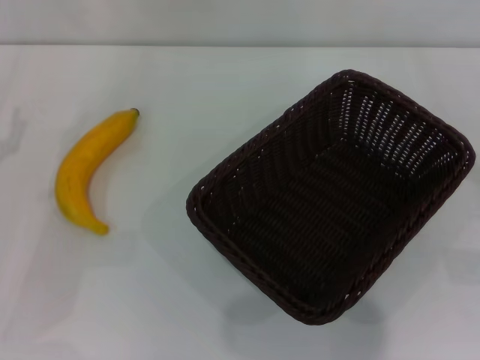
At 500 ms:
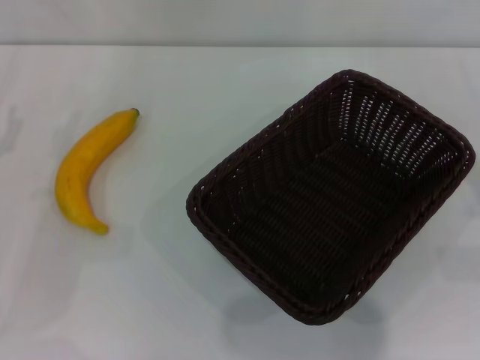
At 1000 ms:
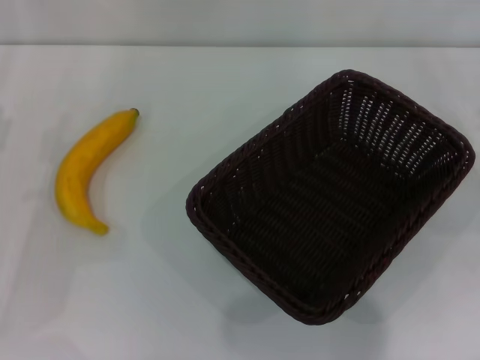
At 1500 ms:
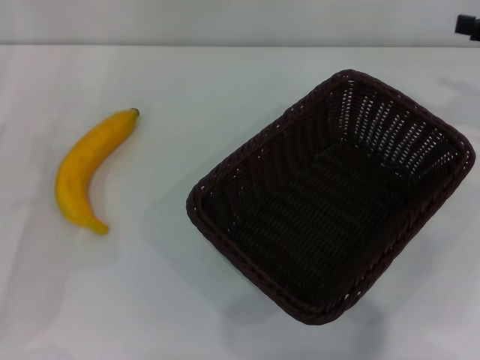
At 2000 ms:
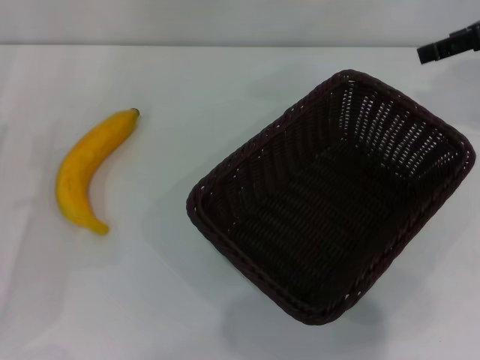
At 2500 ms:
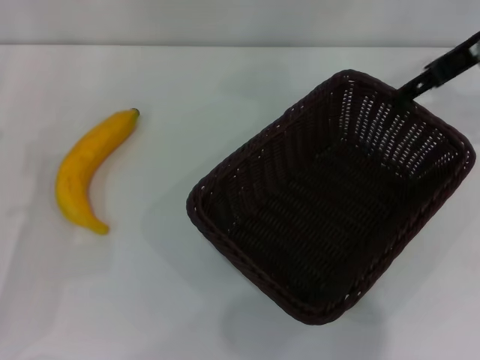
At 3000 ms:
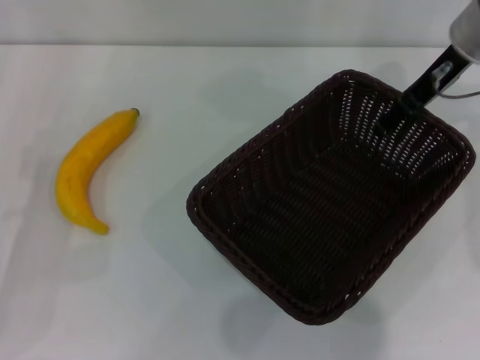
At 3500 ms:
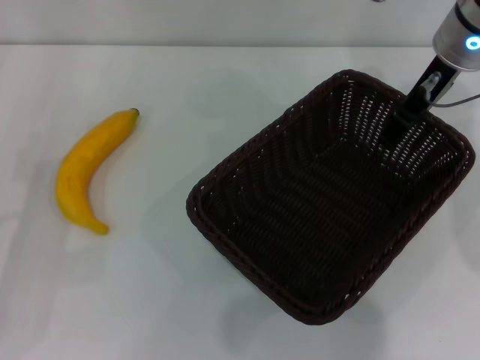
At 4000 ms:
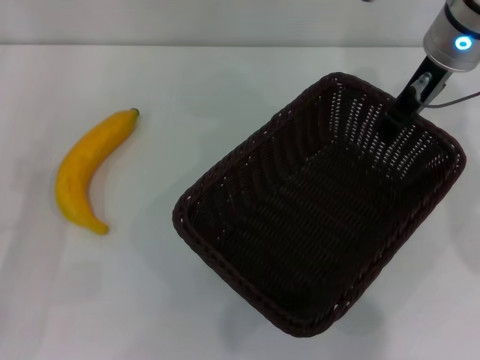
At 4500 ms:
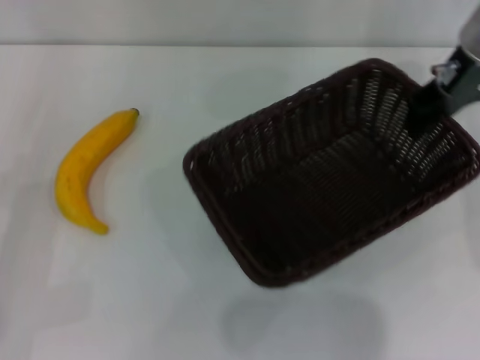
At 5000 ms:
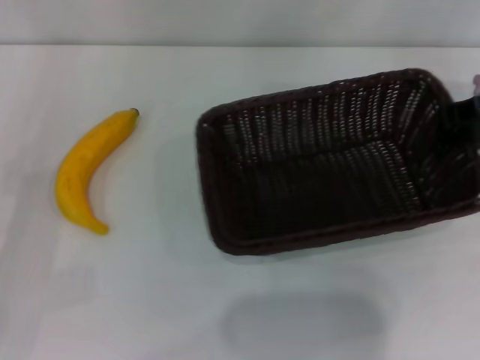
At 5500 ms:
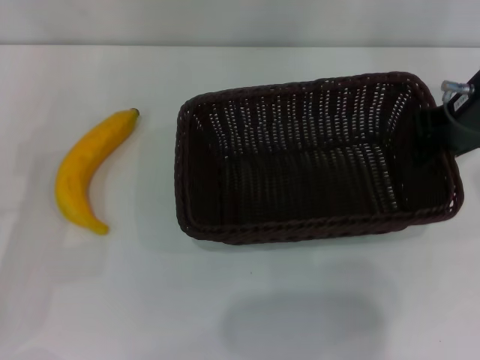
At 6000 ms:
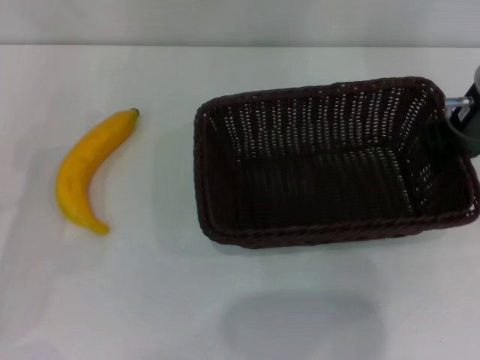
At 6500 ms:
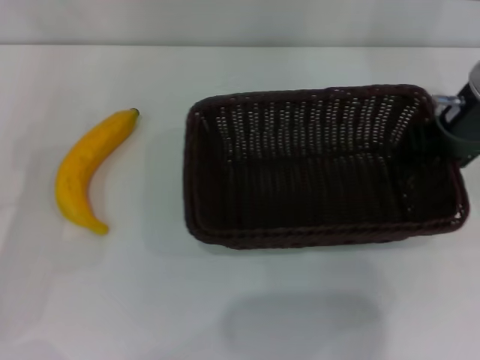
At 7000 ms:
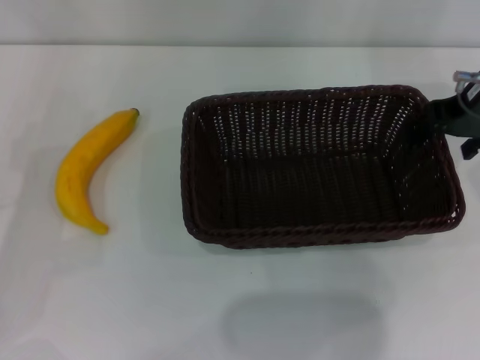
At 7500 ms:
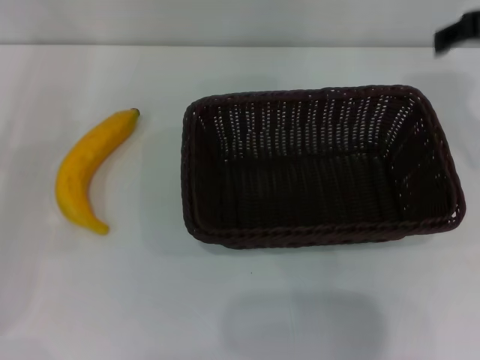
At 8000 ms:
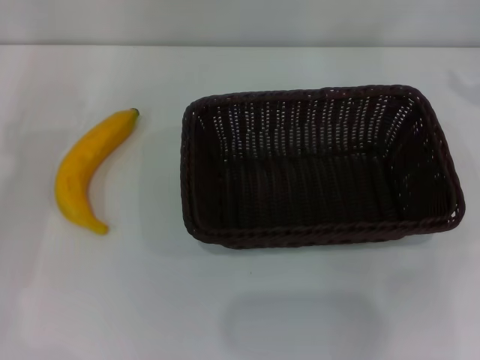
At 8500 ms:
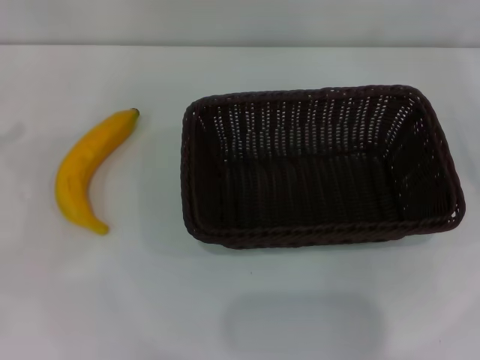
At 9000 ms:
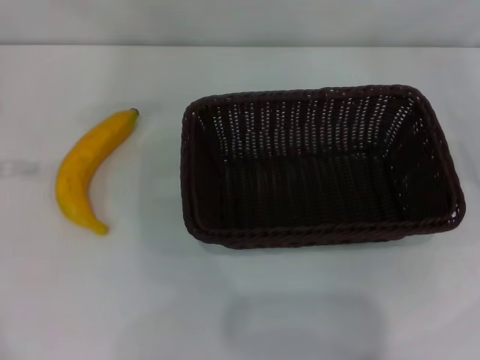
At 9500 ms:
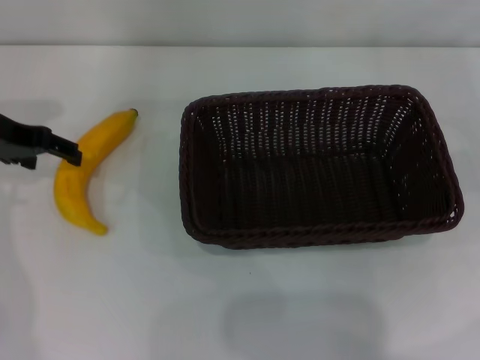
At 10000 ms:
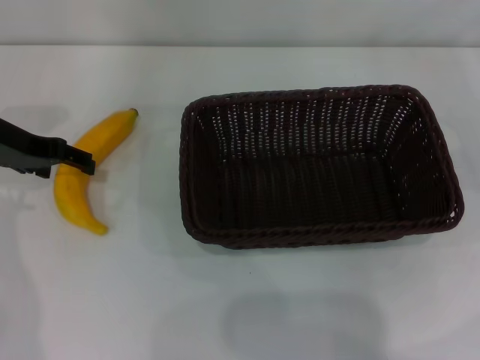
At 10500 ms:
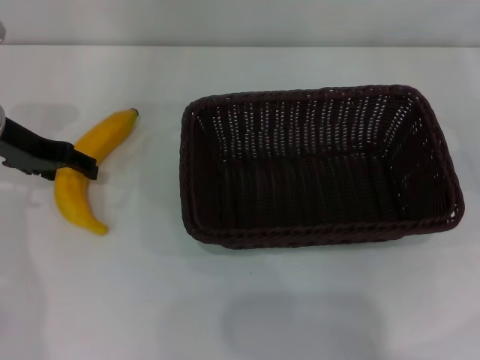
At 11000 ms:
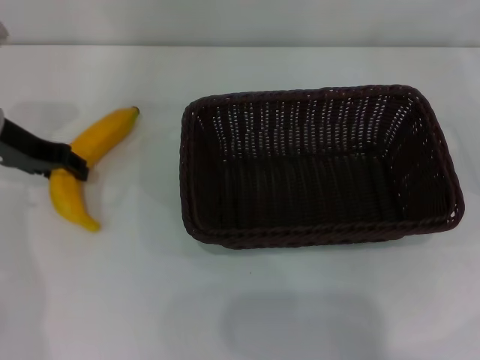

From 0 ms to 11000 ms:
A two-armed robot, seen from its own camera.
Step, from 0 ms to 4000 ms: Pick up the dark basket with the right gripper.
Step, from 4500 ms to 7000 ms: Place the dark basket in the center of view with the right gripper.
From 0 ms to 2000 ms: The right gripper moves upward and forward, some 25 cm.
From 2000 ms to 3500 ms: The right gripper heads to the left, covering roughly 10 cm.
From 3500 ms to 5500 ms: The right gripper moves backward, roughly 5 cm, and closes up.
From 5500 ms to 7500 ms: The right gripper is displaced upward by roughly 5 cm, and opens its fingers.
From 7500 ms to 9000 ms: The right gripper heads to the right and downward, covering about 25 cm.
From 9000 ms to 11000 ms: The left gripper travels to the right and downward by roughly 10 cm, and closes its fingers.

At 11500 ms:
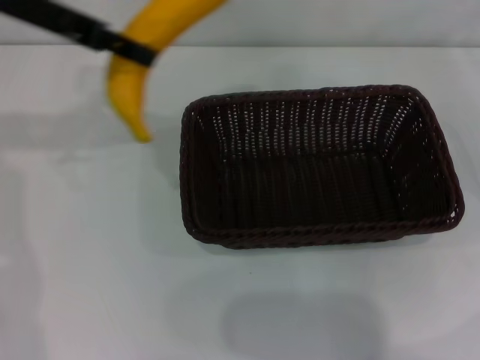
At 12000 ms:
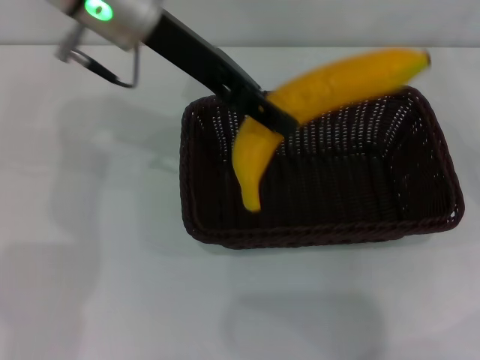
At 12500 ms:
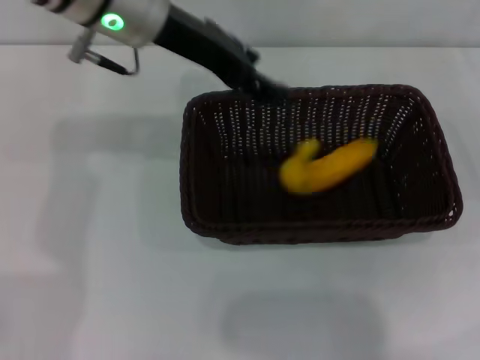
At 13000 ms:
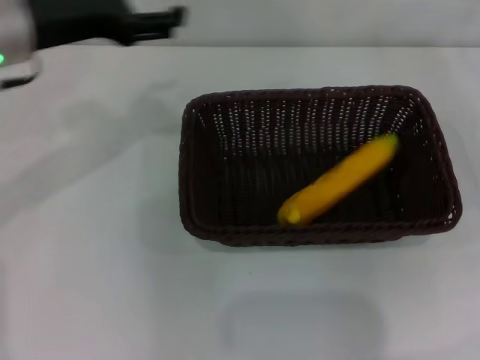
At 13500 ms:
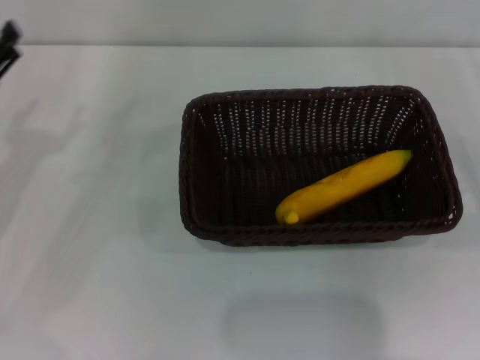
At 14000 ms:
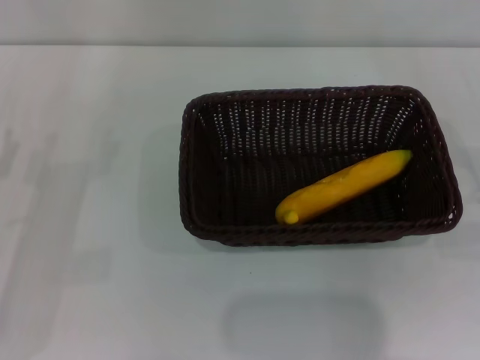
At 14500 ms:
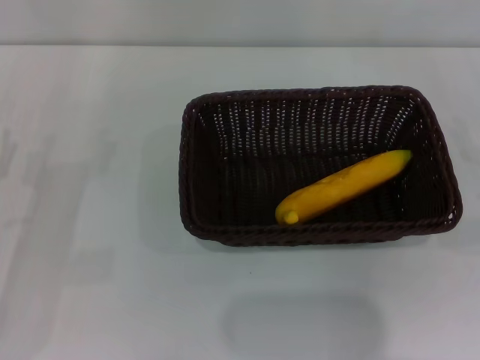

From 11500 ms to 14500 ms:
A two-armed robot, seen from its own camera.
Step, from 11500 ms to 12500 ms: Place the banana into the dark basket with the left gripper.
From 11500 ms to 13000 ms: The left gripper travels downward by about 5 cm, travels to the right and back again, approximately 10 cm each way, and opens.
From 13000 ms to 14500 ms: The right gripper is displaced downward by roughly 5 cm; the left gripper moves downward, backward and to the left, some 20 cm.
